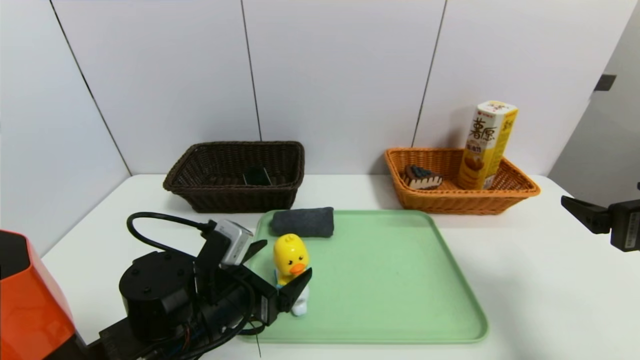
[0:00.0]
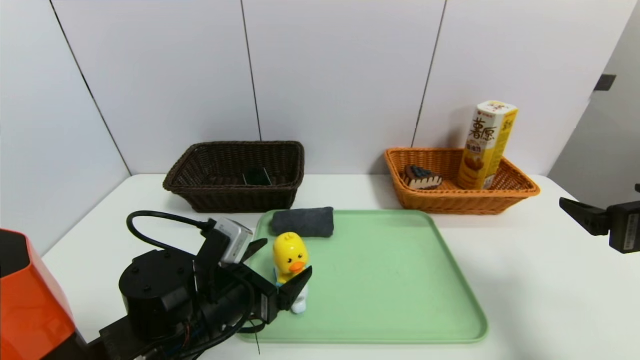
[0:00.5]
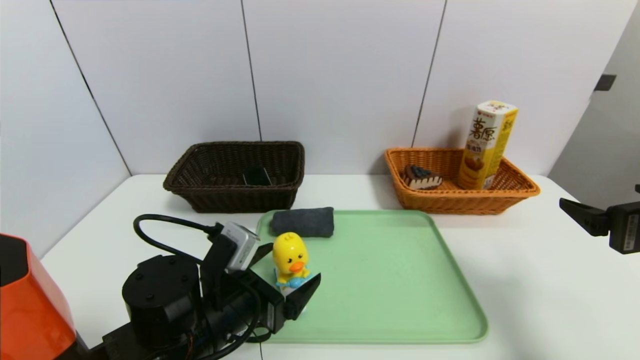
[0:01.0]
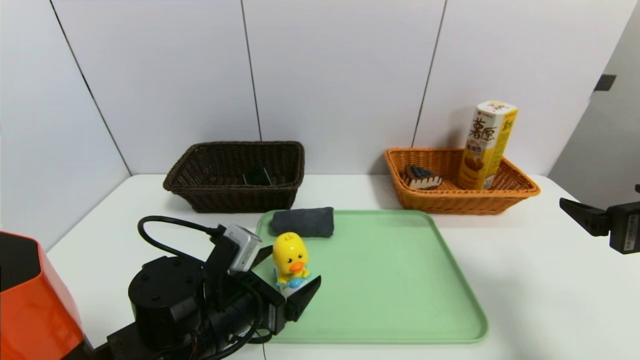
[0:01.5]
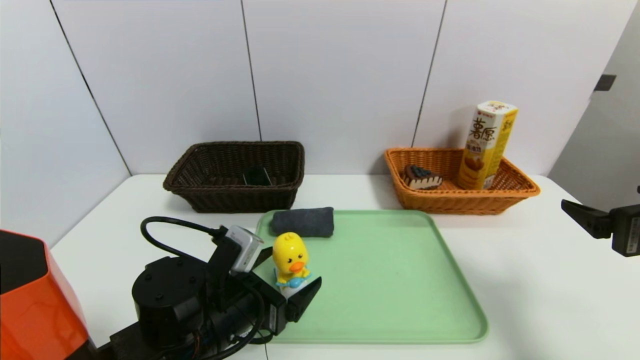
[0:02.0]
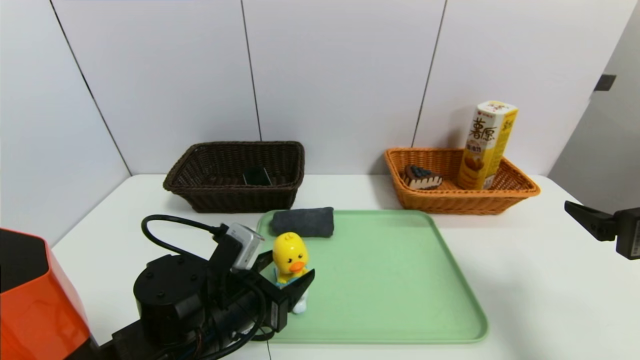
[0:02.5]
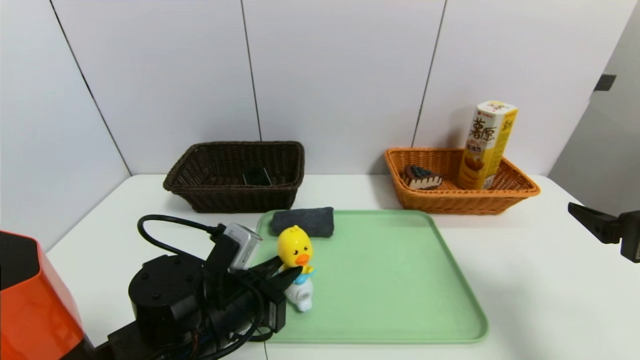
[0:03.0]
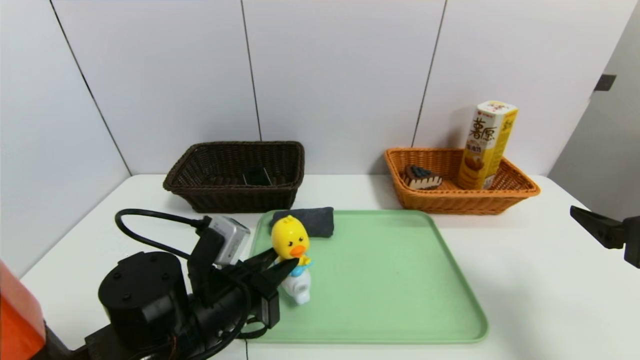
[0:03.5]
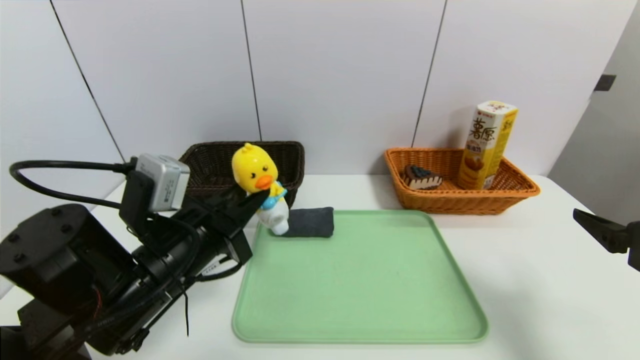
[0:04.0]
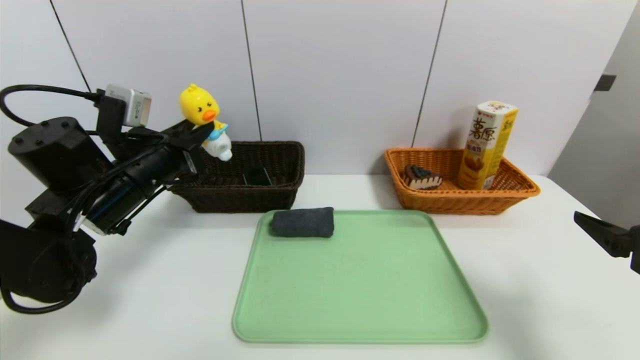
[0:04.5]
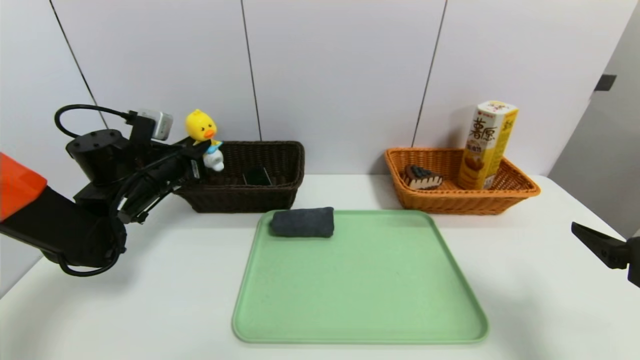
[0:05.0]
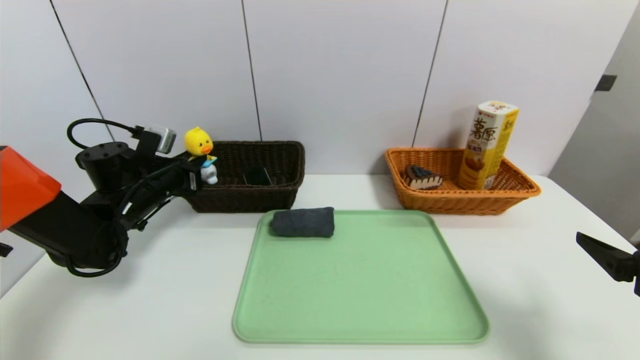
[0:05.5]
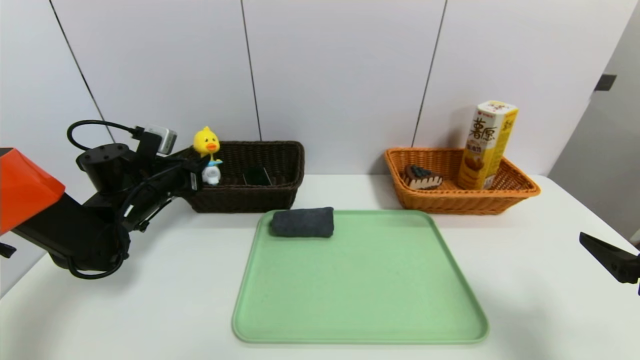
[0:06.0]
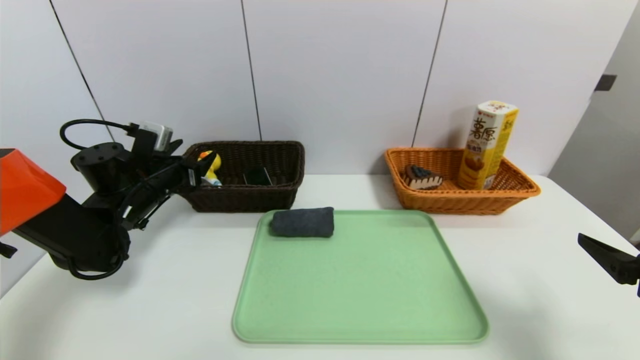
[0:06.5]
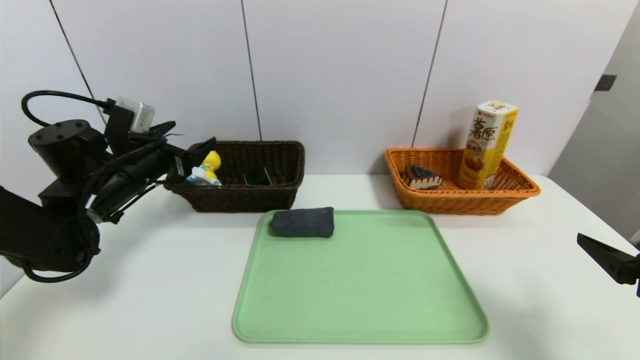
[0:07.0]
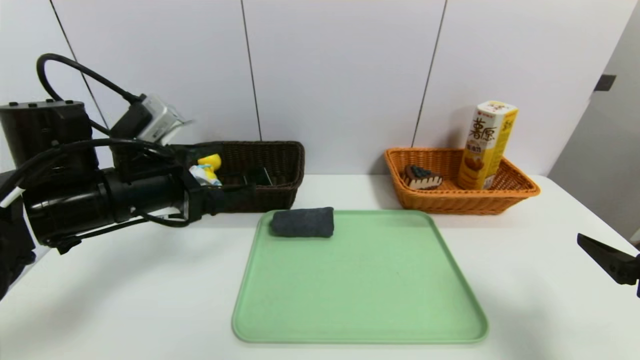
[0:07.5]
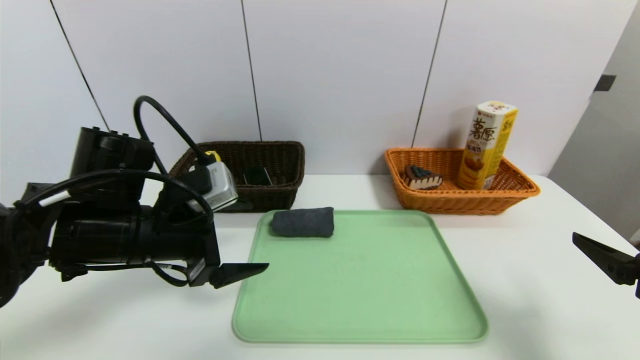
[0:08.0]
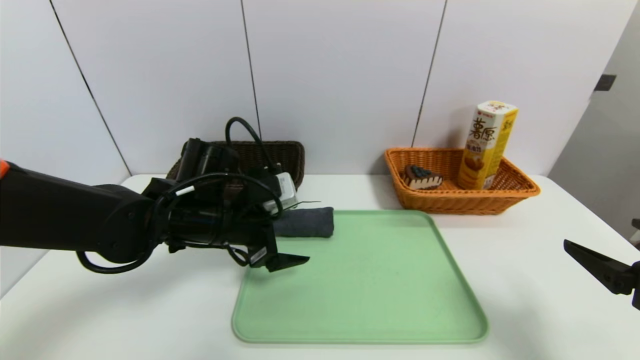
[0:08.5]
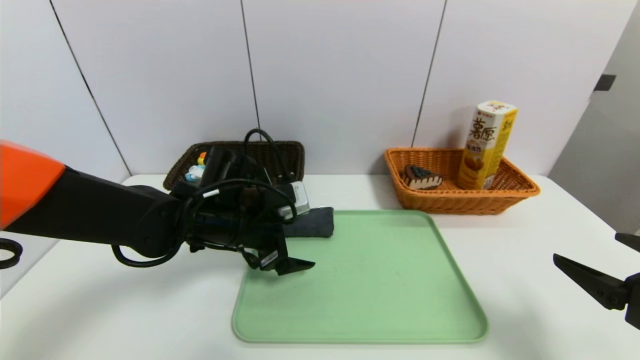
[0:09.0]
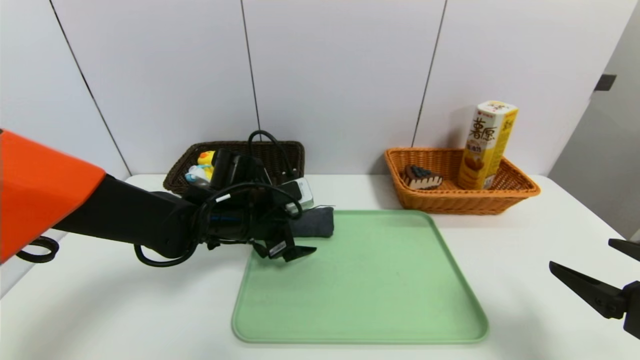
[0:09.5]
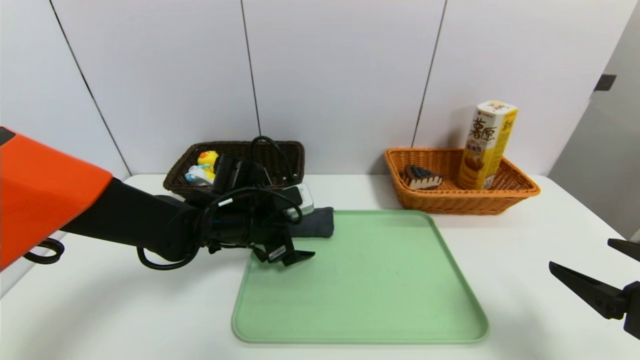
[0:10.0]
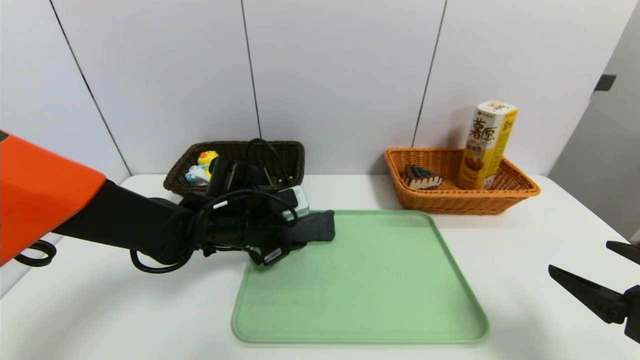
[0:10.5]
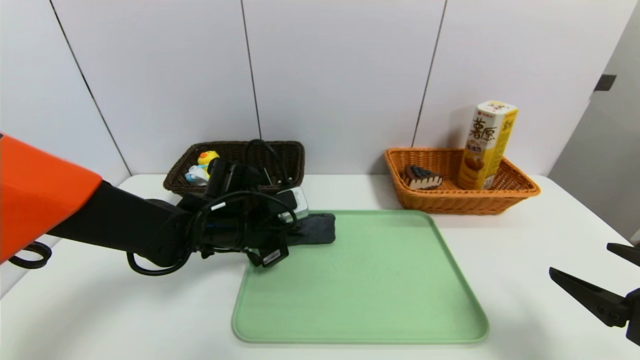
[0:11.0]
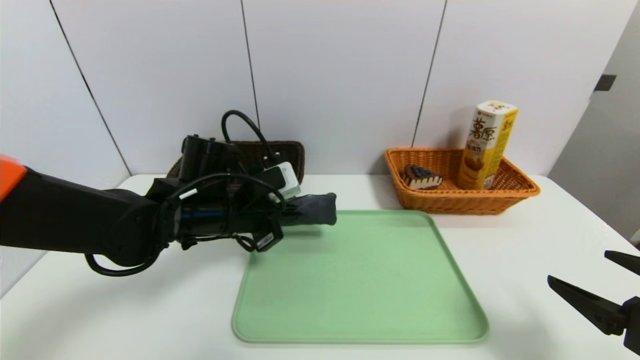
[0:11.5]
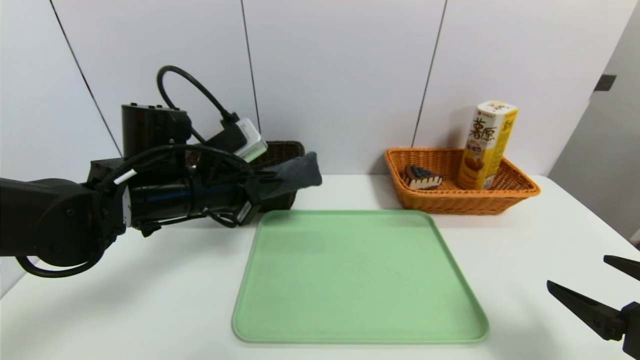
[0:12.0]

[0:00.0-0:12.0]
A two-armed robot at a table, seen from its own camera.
Task of the whole recording: place the food in the right basket with the right gripper, and place the non food items in the left basket with the left gripper.
Step, 0:00.0 to 0:06.5: Grasp the duck toys and put it in the left basket.
0:00.0 to 0:02.0: The two grippers keep their place.
0:02.0 to 0:04.0: The left gripper goes roughly 10 cm upward, and closes up.
0:04.0 to 0:06.0: The left gripper travels forward and to the left by roughly 20 cm.
0:06.0 to 0:08.0: The left gripper goes approximately 20 cm backward, to the right and upward, and opens up.
0:08.0 to 0:10.0: The left gripper is displaced forward, to the right and downward by some 15 cm.
0:10.0 to 0:12.0: The left gripper is displaced upward by approximately 10 cm, and closes its fingers.

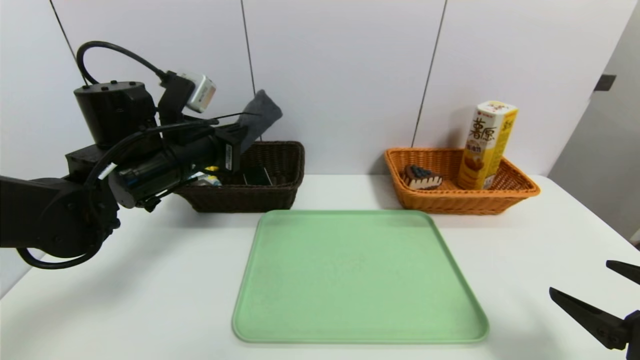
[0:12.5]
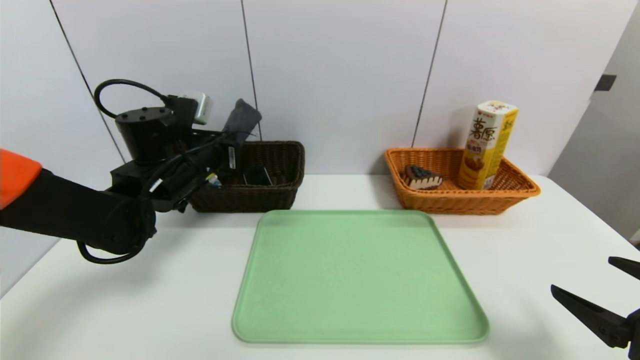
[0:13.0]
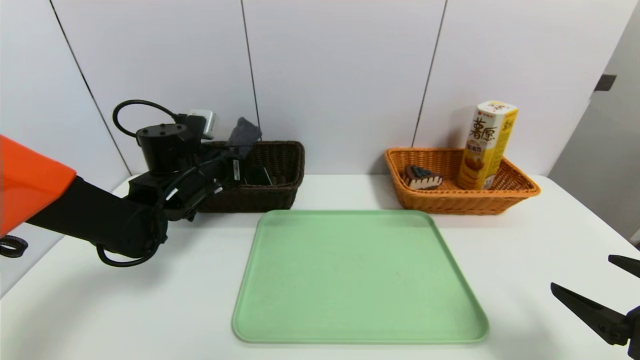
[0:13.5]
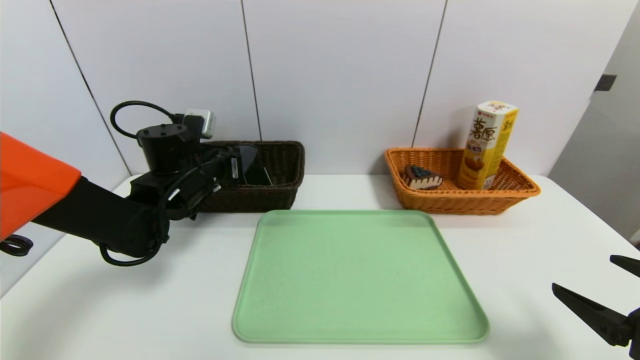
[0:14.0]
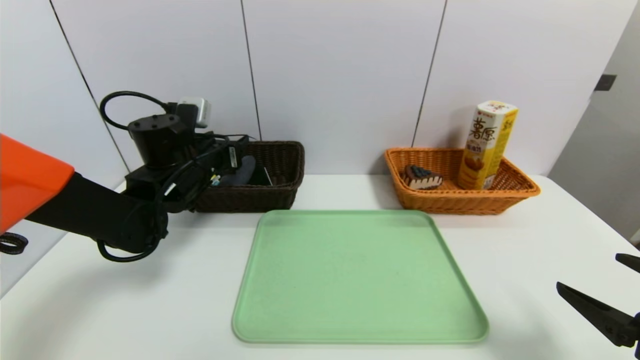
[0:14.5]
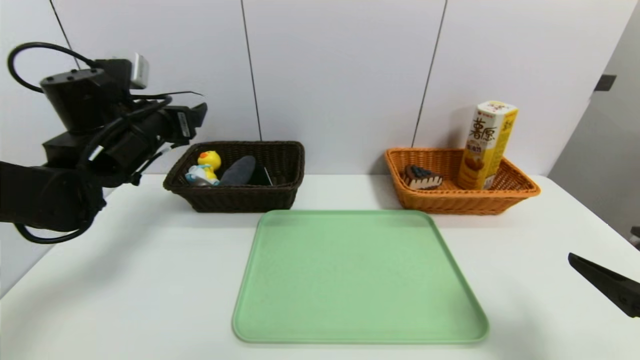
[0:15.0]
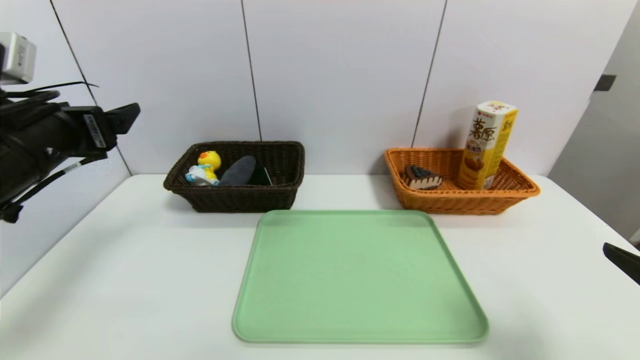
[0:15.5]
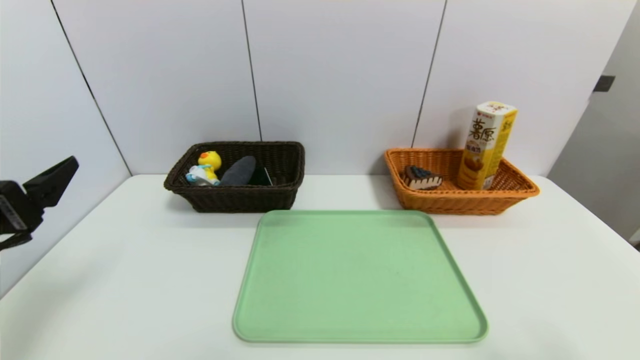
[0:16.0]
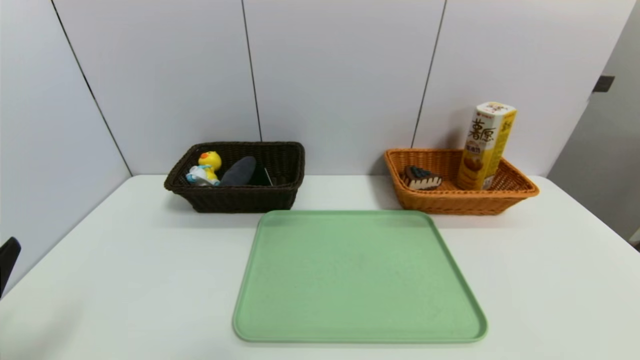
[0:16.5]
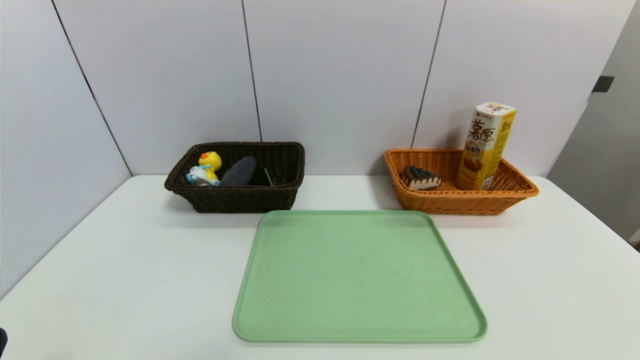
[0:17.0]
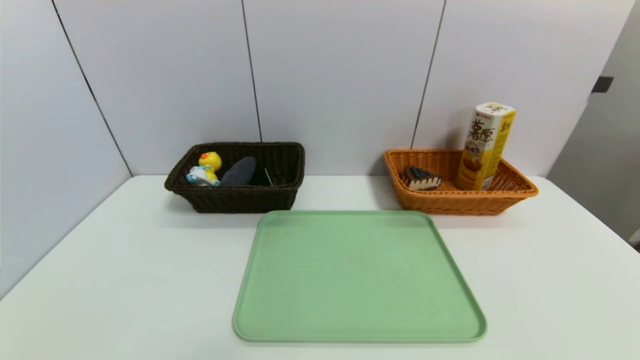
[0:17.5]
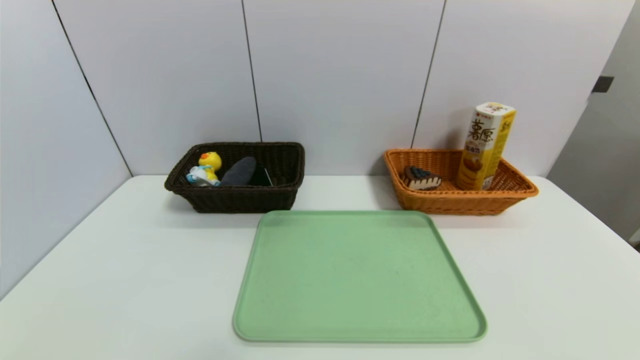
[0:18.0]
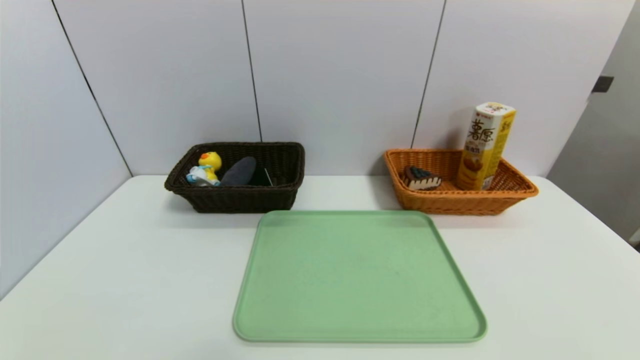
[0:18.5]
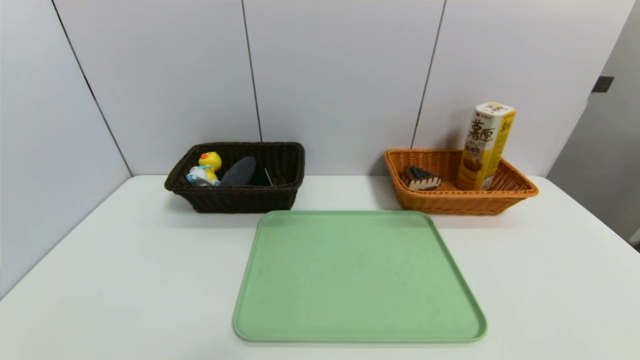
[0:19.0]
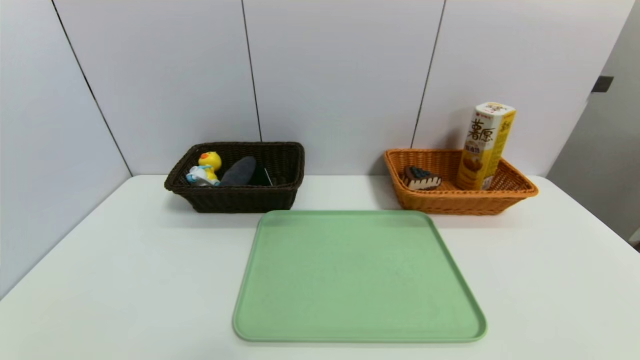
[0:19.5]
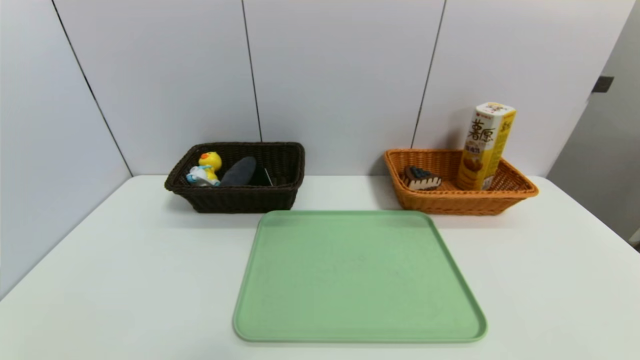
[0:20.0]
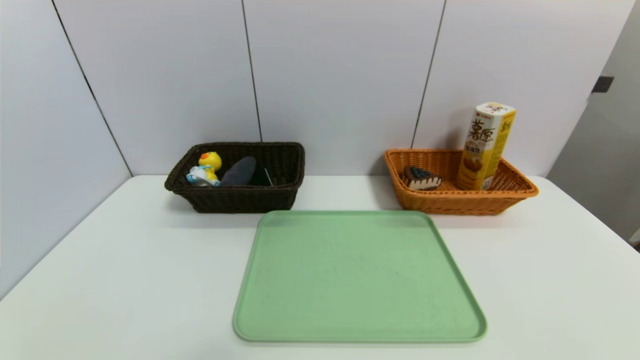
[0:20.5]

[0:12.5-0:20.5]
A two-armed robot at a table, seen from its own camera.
Task of the whole recording: place the food in the right basket with the right gripper, and place the non food items in the left basket with the left gripper.
0:12.5 to 0:14.5: The left gripper goes some 5 cm forward, and opens up.
0:14.5 to 0:16.5: The left gripper goes some 30 cm backward, while the right gripper goes some 10 cm backward.
0:16.5 to 0:18.5: The left gripper shifts approximately 10 cm downward and backward.
